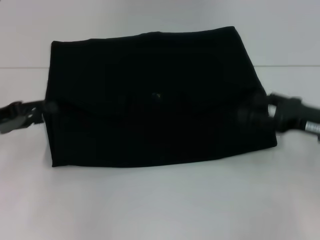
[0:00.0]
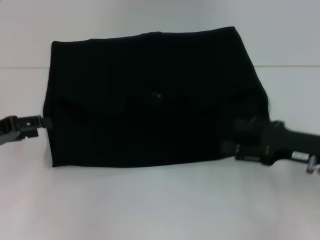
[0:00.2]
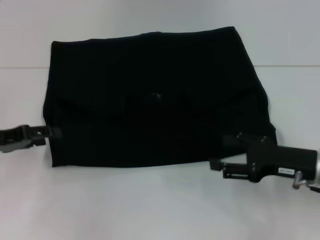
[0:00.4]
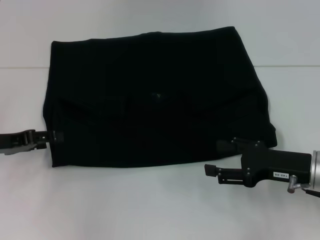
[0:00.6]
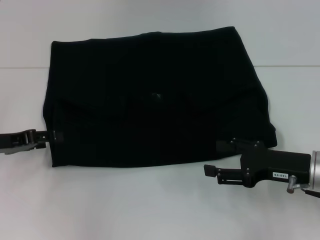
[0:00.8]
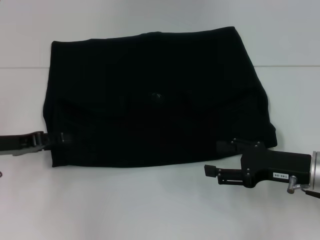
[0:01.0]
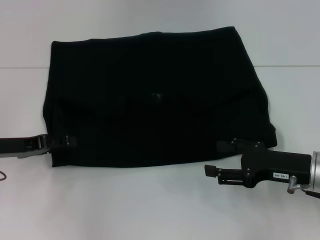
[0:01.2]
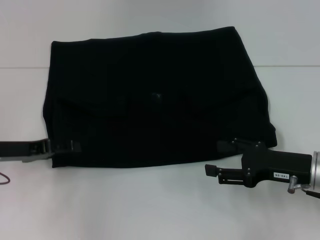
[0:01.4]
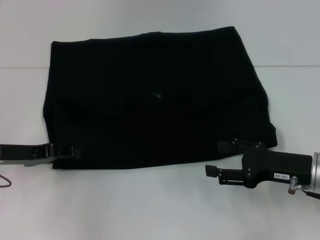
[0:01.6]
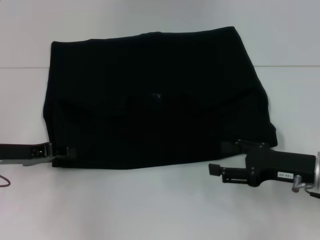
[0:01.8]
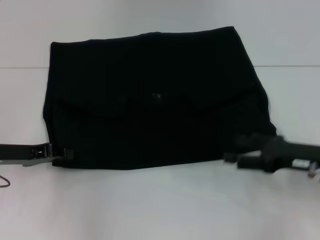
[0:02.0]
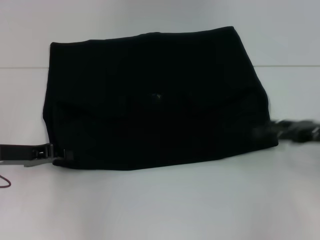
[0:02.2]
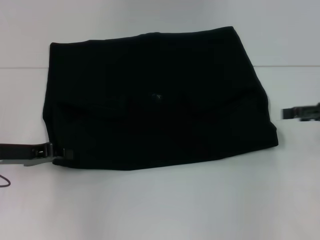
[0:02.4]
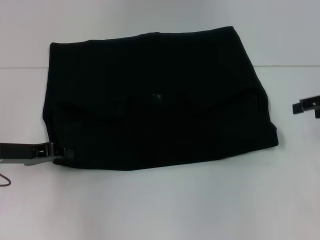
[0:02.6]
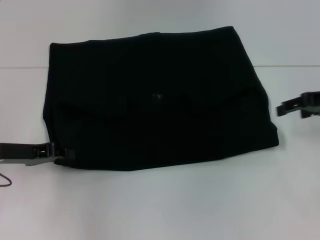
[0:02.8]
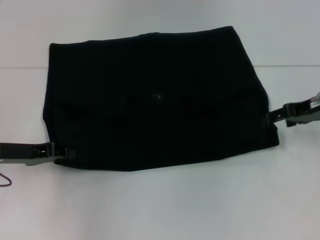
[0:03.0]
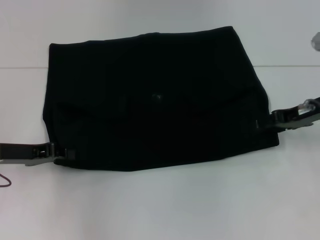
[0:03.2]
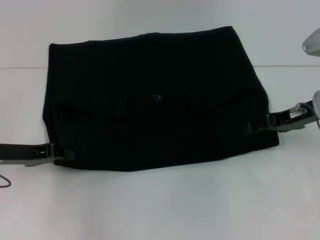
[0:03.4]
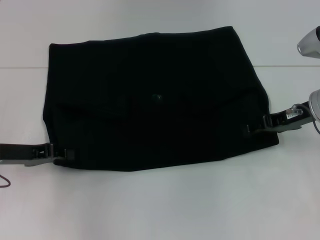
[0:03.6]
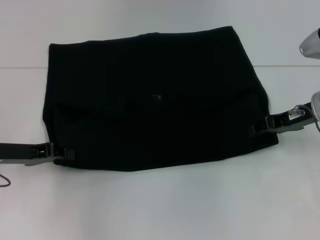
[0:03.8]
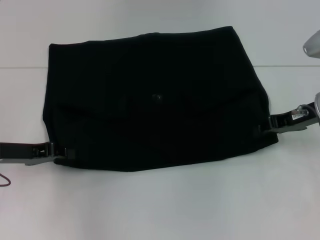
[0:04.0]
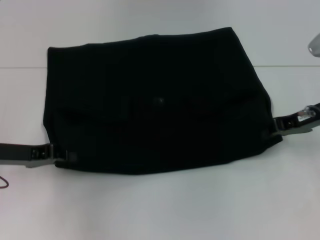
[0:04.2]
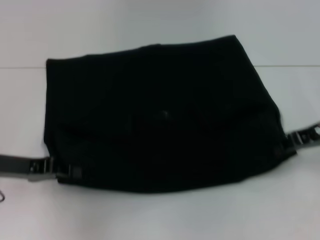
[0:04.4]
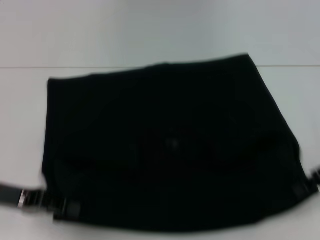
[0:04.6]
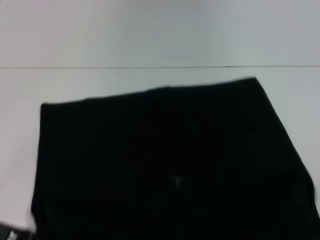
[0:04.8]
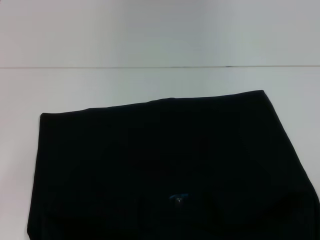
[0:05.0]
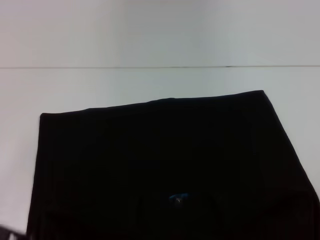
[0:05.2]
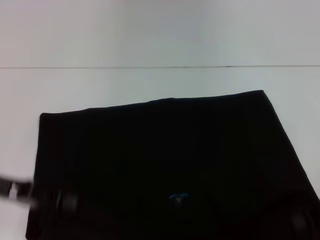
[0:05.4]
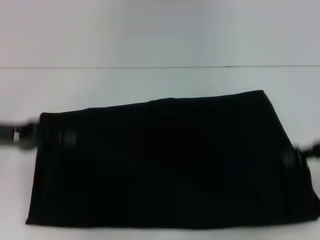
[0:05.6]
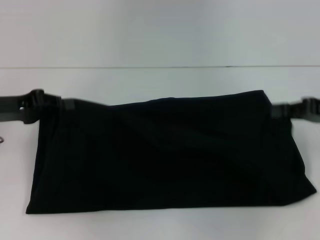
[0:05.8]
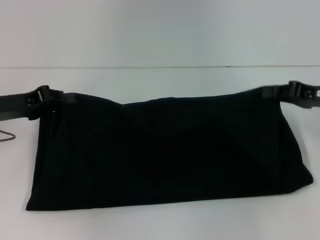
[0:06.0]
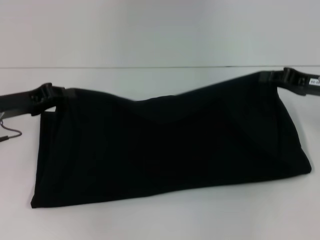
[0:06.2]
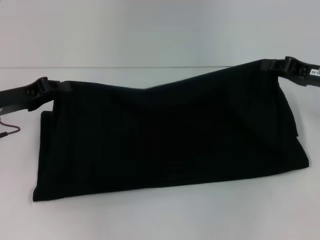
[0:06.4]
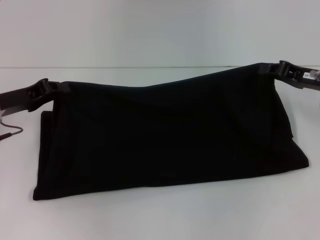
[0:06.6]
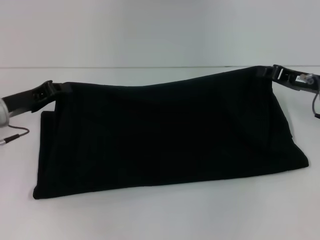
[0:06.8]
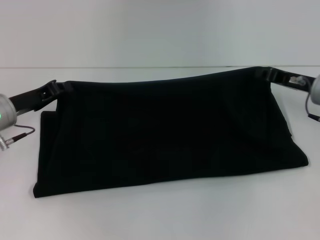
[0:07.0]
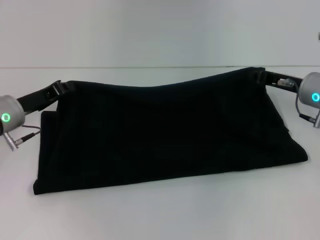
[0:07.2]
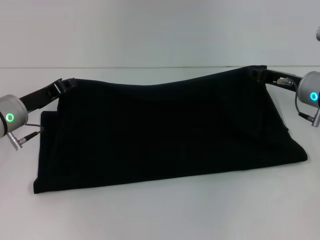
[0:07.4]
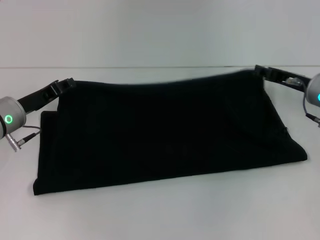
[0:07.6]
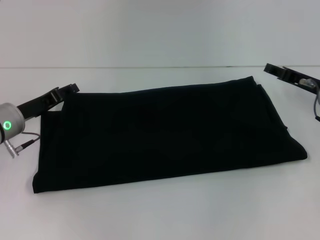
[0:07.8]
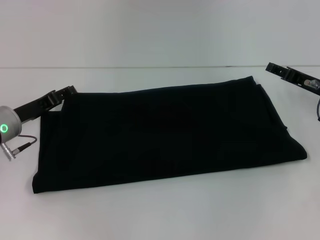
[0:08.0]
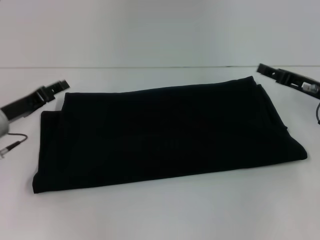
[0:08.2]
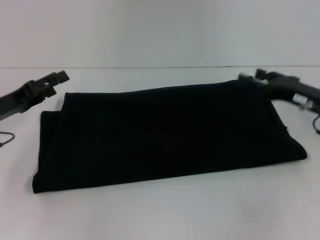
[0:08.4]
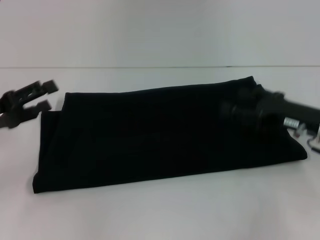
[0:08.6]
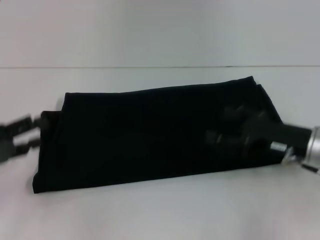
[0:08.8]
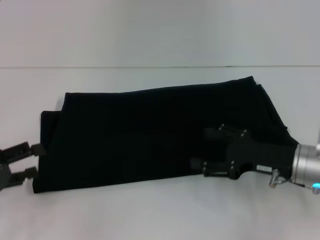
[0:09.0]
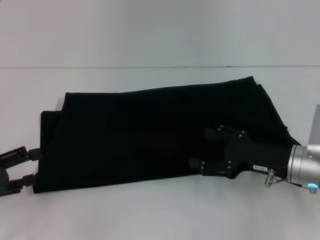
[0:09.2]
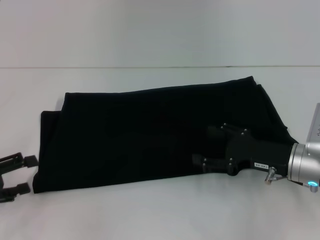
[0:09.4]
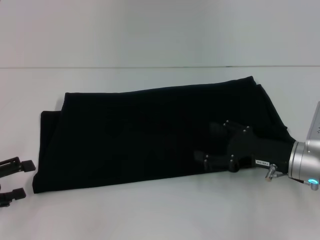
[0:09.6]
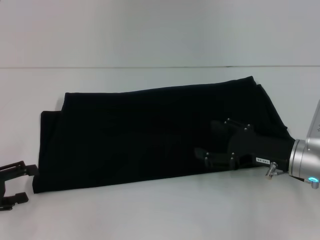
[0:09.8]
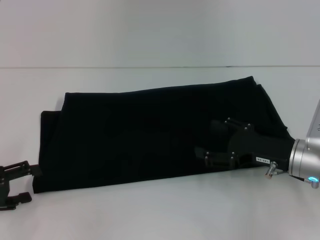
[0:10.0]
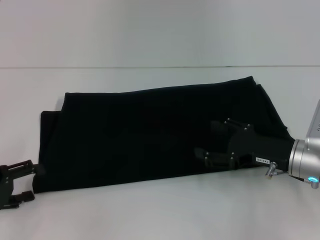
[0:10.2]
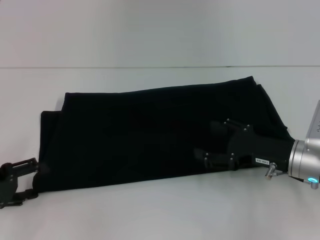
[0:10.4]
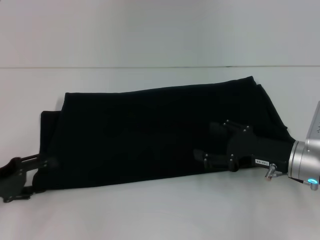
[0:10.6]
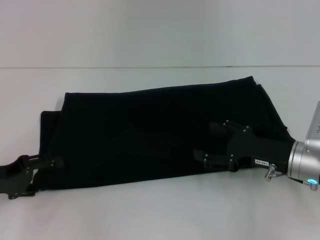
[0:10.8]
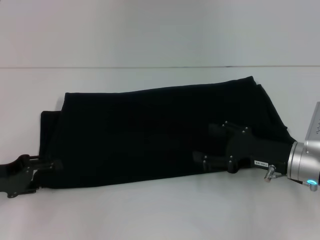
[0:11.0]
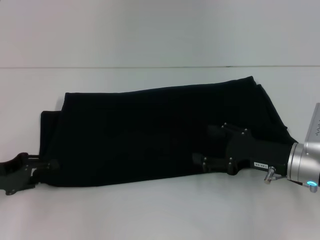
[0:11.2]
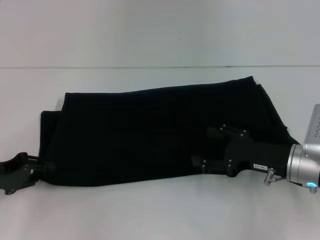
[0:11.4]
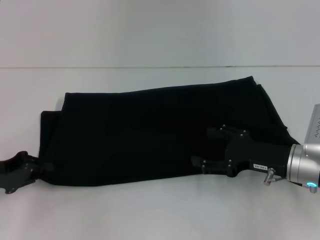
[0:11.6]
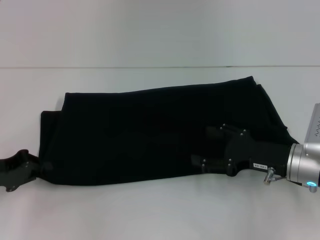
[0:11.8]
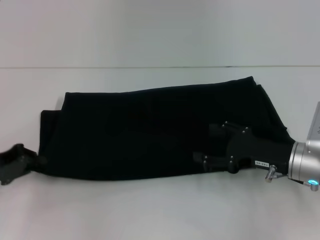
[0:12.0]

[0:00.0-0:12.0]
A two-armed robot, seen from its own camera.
Step, 0:00.0 to 0:04.8: Pull the clothes with your left hand.
Step, 0:00.0 to 0:04.8: Pull the clothes with your right hand.
Step, 0:05.0 to 0:08.2: Fold the clothes with your right hand.
0:00.0 to 0:01.6: The left gripper ends up roughly 5 cm from where it was. Meanwhile the right gripper changes place by approximately 5 cm.
0:01.6 to 0:03.0: The right gripper goes some 15 cm forward and upward, while the left gripper closes up.
0:03.0 to 0:04.4: The right gripper closes.
0:04.4 to 0:06.0: The right gripper goes backward and returns, approximately 10 cm each way.
0:06.0 to 0:07.6: The left gripper changes place by about 5 cm, while the right gripper moves approximately 5 cm.
0:07.6 to 0:09.0: The left gripper goes approximately 15 cm backward and to the left, and opens its fingers, while the right gripper moves backward, roughly 10 cm, and opens up.
0:09.0 to 0:10.4: The grippers make only small movements.
0:10.4 to 0:12.0: The left gripper closes.

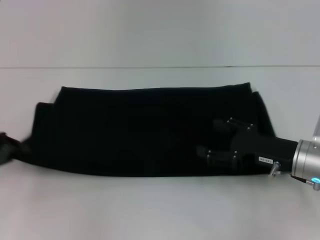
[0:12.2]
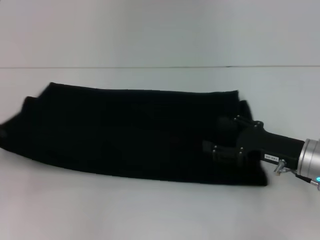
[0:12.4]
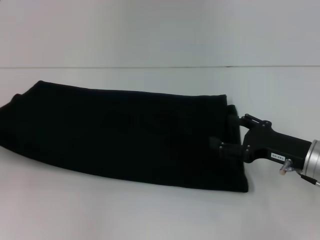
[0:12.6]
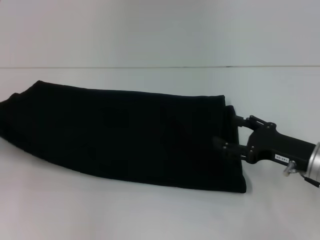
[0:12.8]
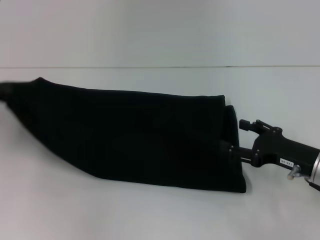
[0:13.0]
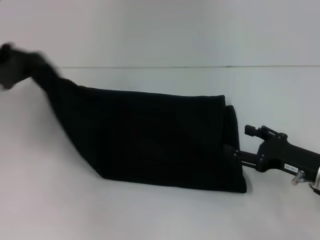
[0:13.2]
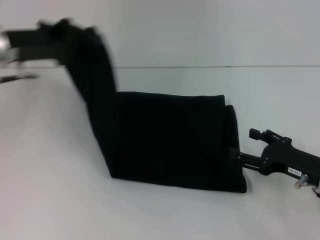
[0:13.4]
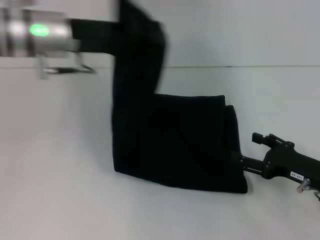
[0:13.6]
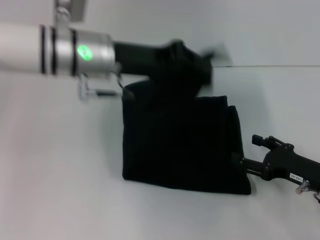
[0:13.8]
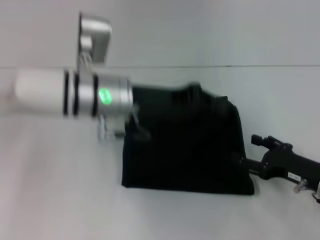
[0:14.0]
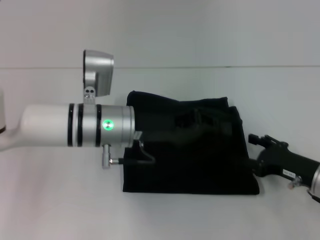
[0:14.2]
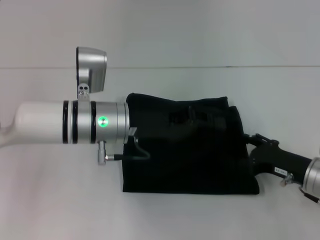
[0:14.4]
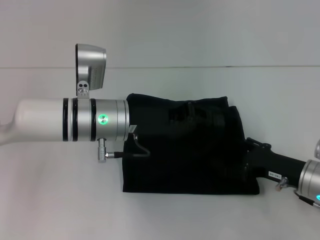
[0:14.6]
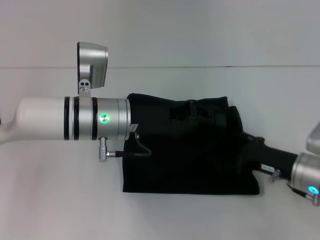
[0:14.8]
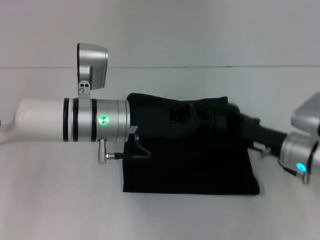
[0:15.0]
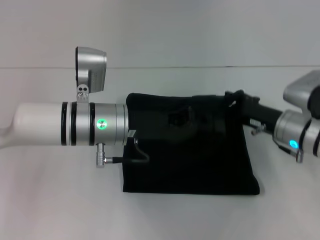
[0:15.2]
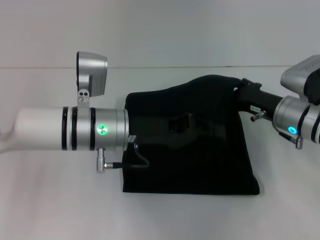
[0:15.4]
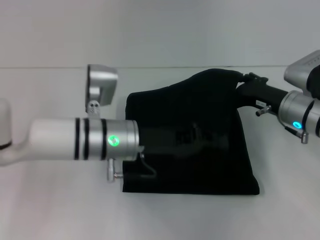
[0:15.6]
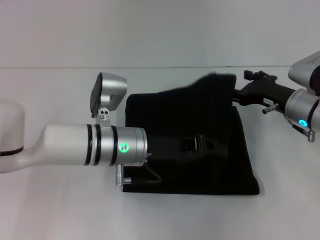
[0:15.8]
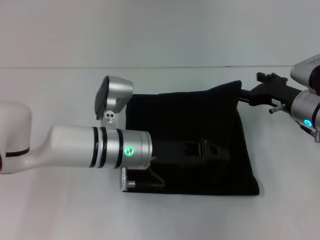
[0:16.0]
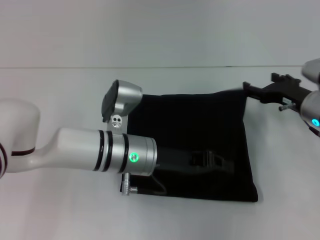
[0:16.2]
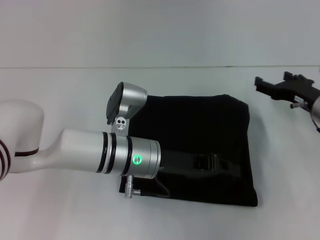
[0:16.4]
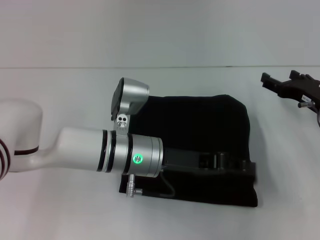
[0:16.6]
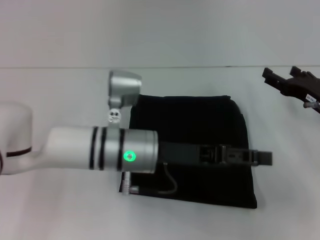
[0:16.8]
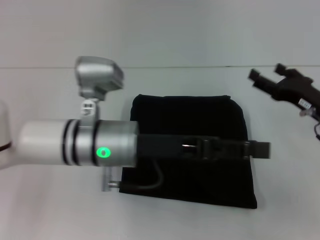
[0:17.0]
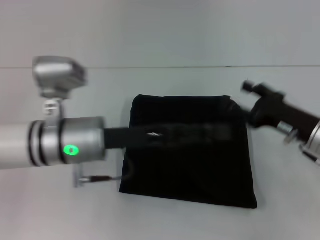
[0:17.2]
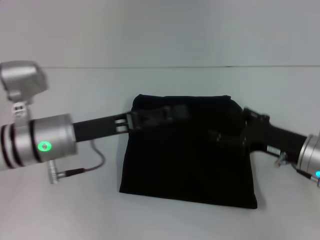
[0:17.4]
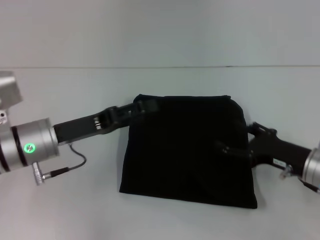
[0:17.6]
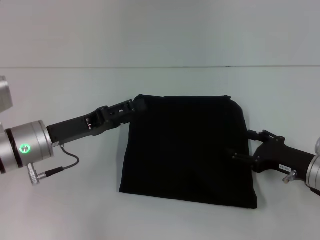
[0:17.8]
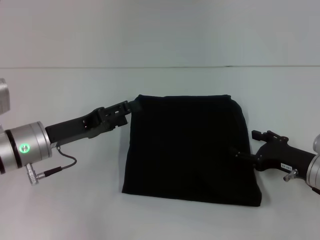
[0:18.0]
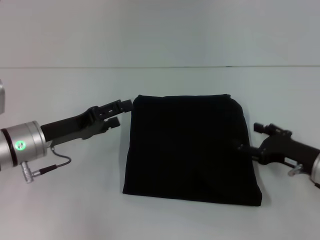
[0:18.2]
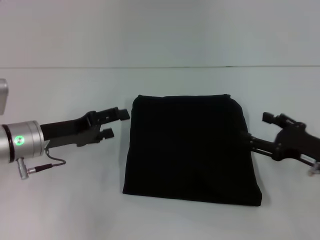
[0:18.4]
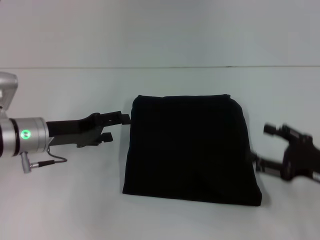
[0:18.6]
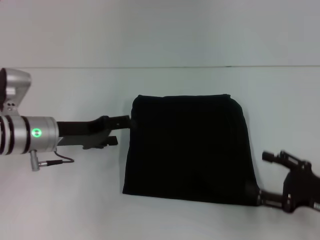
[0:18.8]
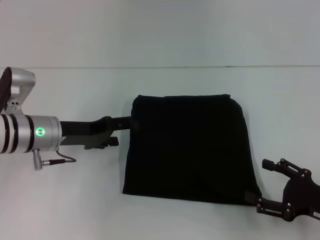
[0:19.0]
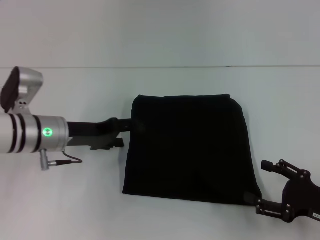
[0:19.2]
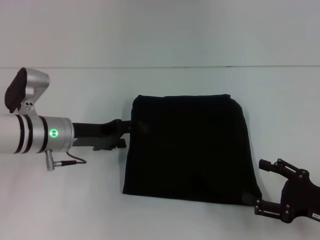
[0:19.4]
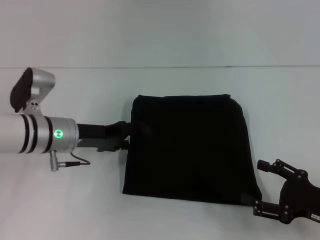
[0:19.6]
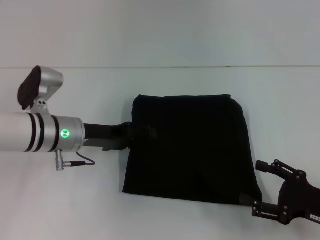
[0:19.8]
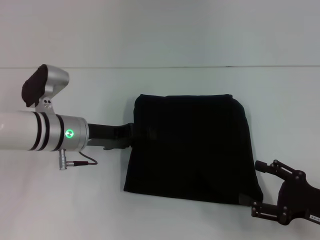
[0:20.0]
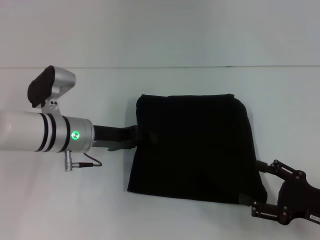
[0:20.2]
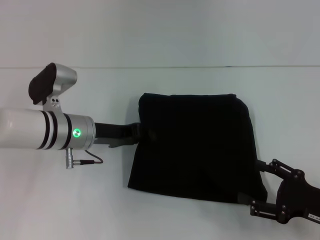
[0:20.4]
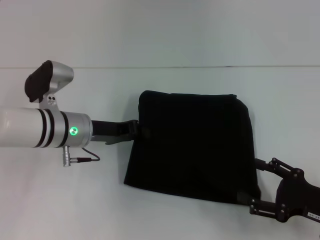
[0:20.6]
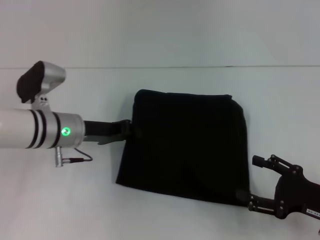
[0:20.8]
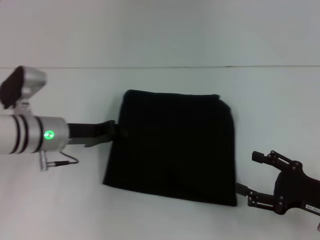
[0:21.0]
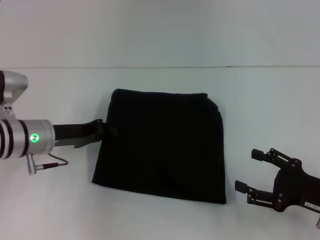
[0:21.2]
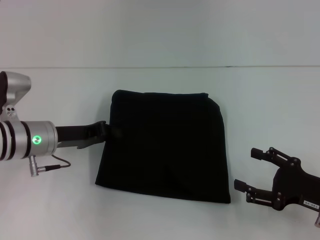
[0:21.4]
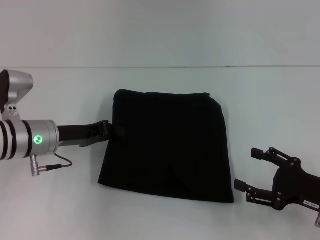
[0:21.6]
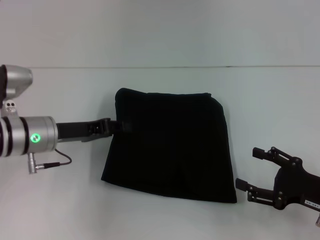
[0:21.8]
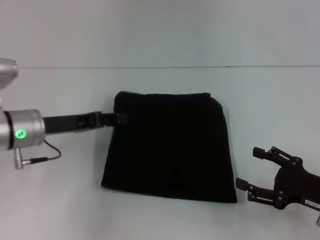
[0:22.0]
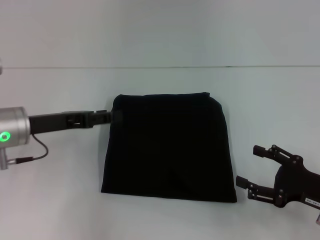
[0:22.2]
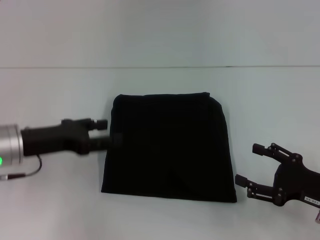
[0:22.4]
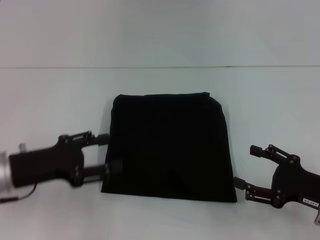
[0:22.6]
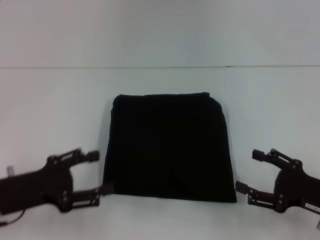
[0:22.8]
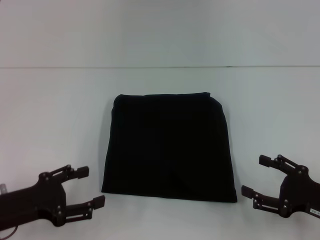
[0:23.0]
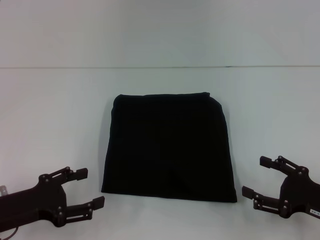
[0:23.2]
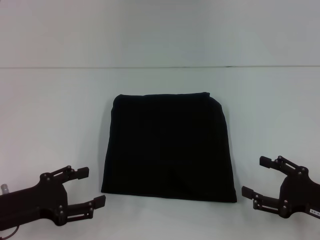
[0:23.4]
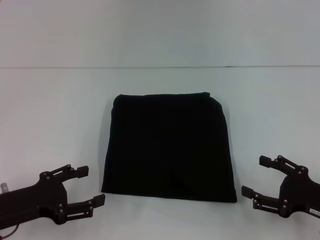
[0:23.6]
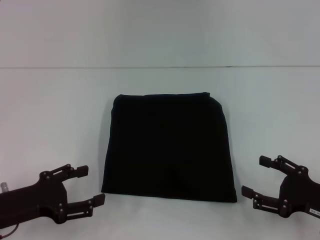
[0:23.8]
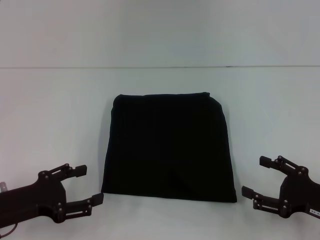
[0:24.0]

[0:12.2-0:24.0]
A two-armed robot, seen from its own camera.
Step, 0:12.2 to 0:16.6: Fold the clothes with your left hand.
0:12.2 to 0:13.6: The left gripper heads to the right, upward and forward, covering about 25 cm; the right gripper moves approximately 5 cm.
0:13.6 to 0:15.2: The right gripper moves forward and to the left, approximately 10 cm. Meanwhile the left gripper is displaced downward, to the right and backward by about 15 cm.
0:15.2 to 0:16.6: The right gripper is displaced to the right by some 5 cm, while the left gripper changes place by approximately 5 cm.
0:16.6 to 0:18.2: The right gripper shifts roughly 5 cm backward. The left gripper travels to the left by approximately 15 cm, and opens.
0:18.2 to 0:19.6: The right gripper is displaced backward by roughly 10 cm, while the left gripper changes place by roughly 5 cm.
0:19.6 to 0:21.0: The left gripper closes up.
0:21.0 to 0:22.6: The left gripper heads backward and to the left, covering roughly 10 cm, and opens.
0:22.6 to 0:24.0: The left gripper shifts by some 5 cm.
